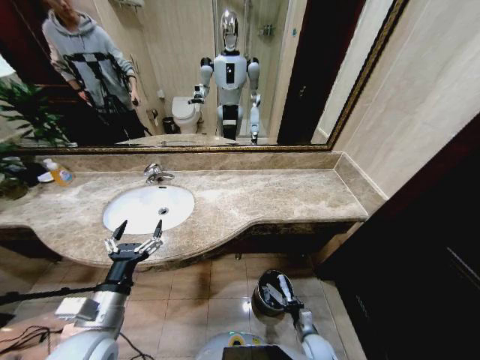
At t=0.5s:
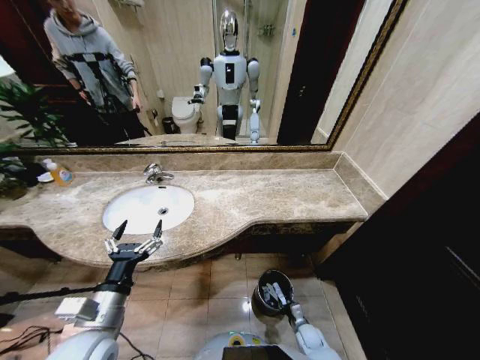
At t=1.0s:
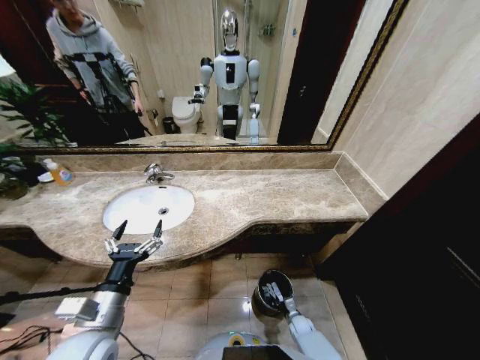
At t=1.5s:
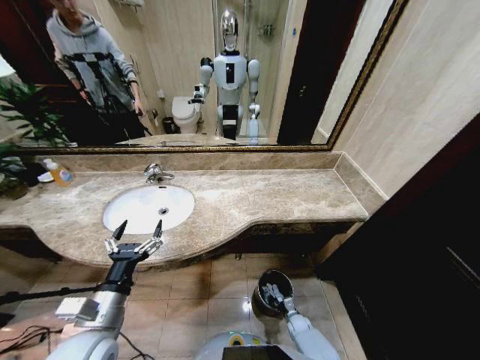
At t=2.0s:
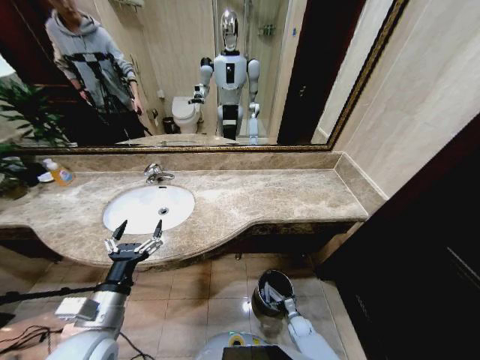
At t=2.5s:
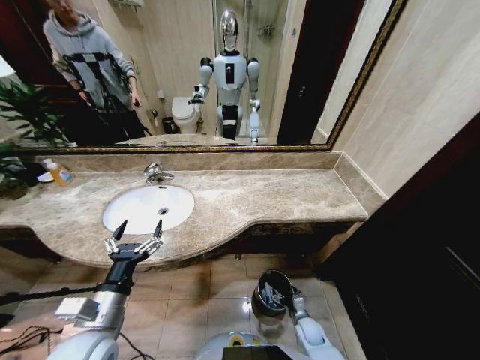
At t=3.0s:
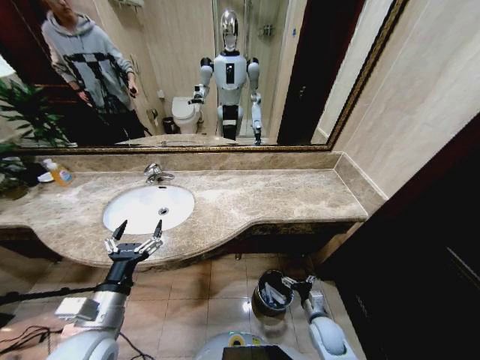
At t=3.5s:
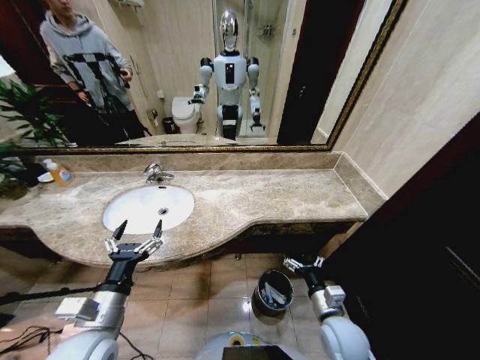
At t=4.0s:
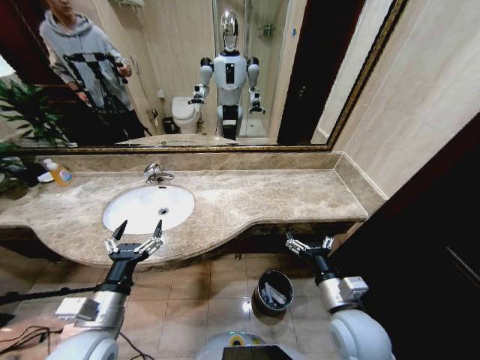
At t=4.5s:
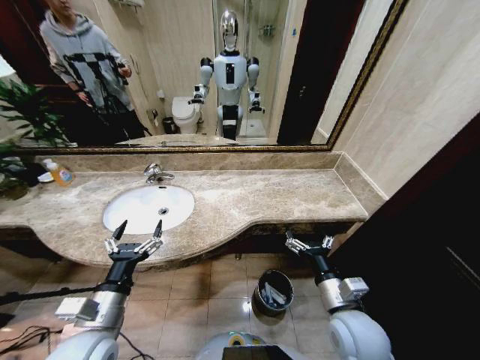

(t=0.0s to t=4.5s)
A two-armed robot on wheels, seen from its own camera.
Task of the whole recording: Pick up the trash from the sink and place it in the trash bin.
t=0.0s - t=2.0s: The right gripper is displaced downward and forward by some 10 cm, and opens its fingers.
t=2.0s - t=4.5s: The right gripper goes roughly 40 cm upward.
